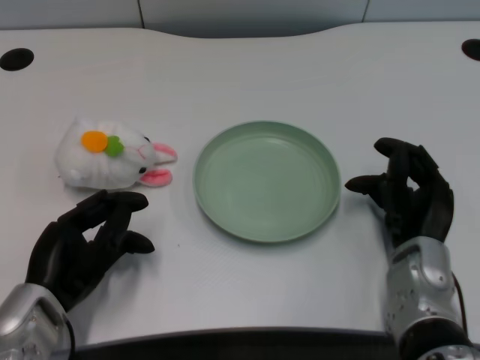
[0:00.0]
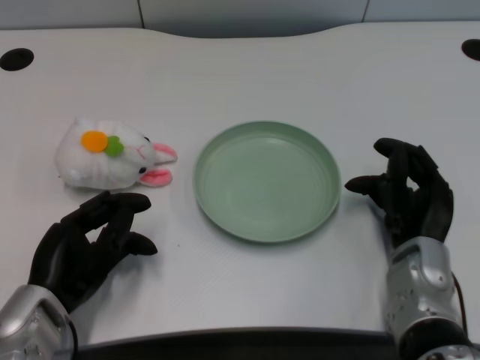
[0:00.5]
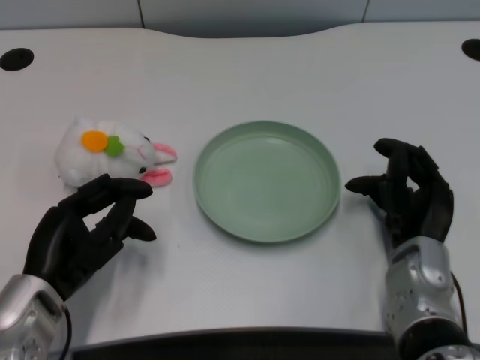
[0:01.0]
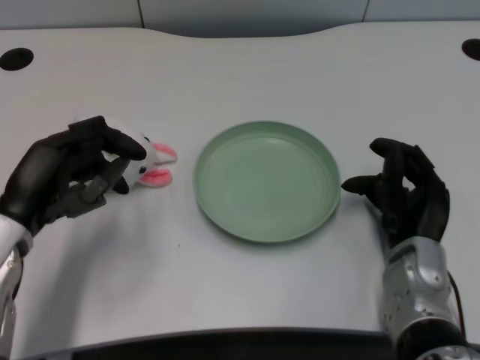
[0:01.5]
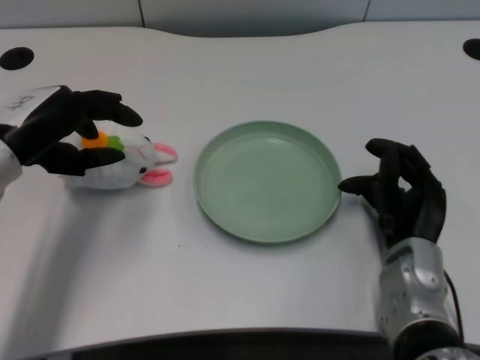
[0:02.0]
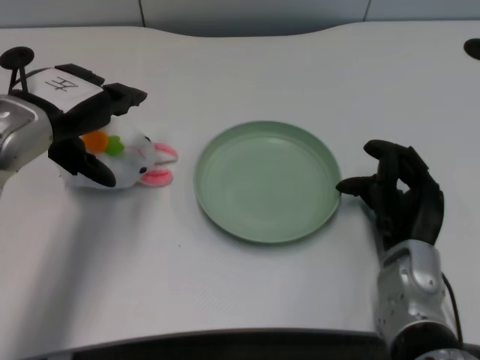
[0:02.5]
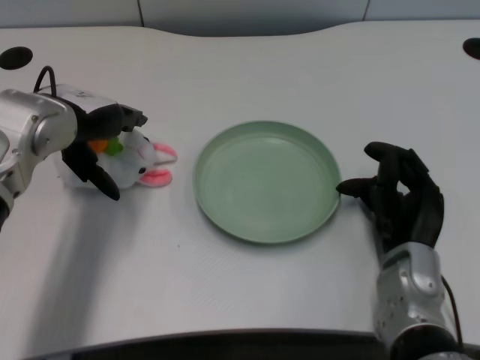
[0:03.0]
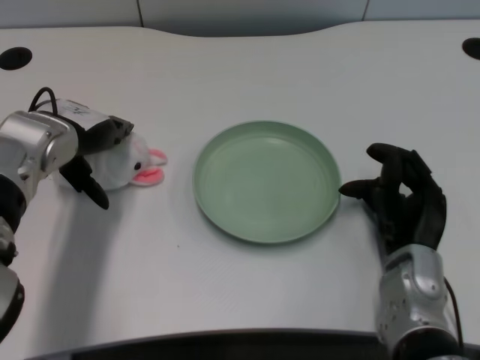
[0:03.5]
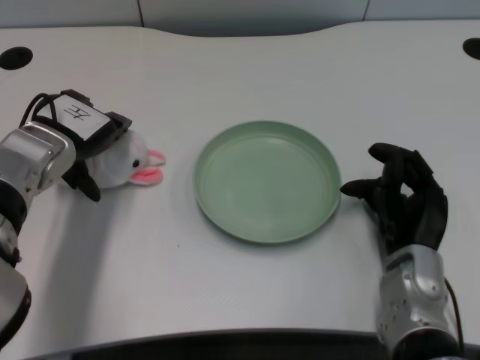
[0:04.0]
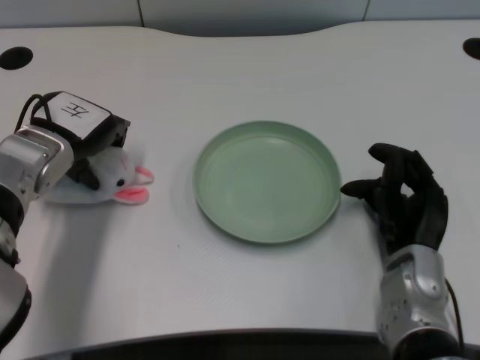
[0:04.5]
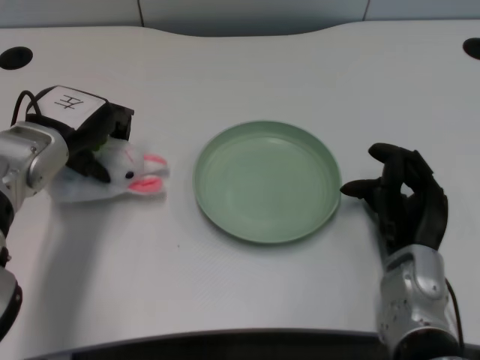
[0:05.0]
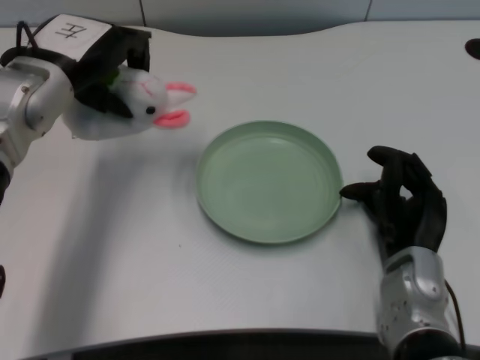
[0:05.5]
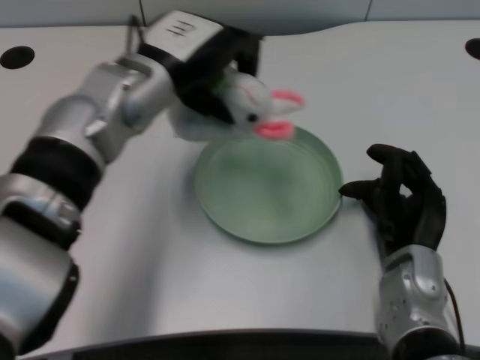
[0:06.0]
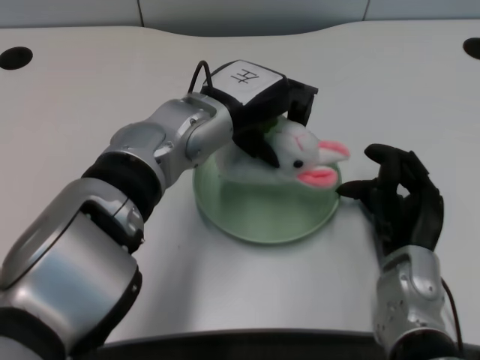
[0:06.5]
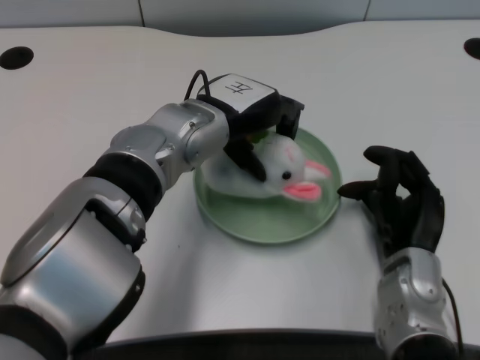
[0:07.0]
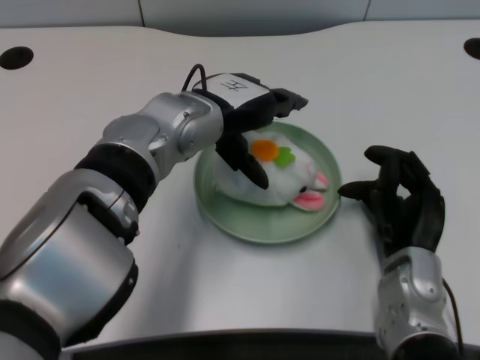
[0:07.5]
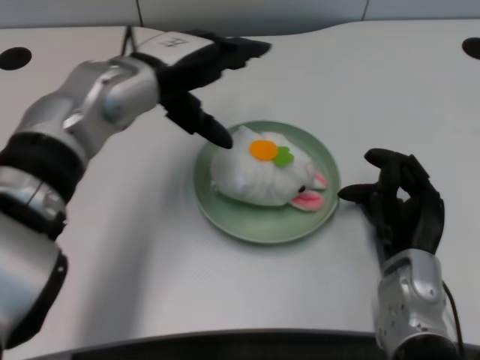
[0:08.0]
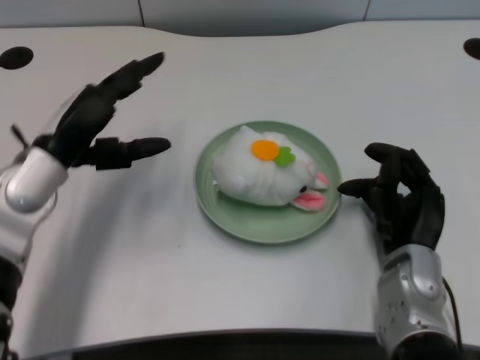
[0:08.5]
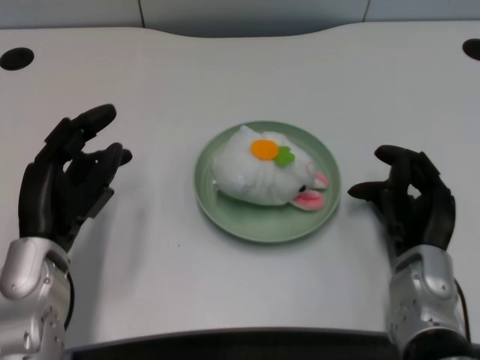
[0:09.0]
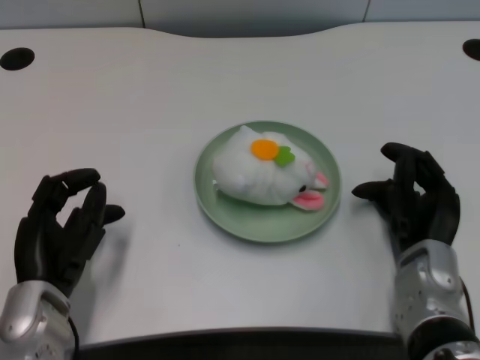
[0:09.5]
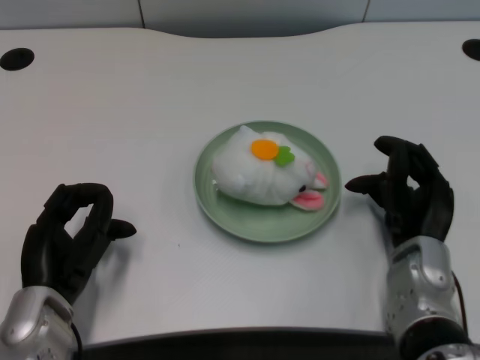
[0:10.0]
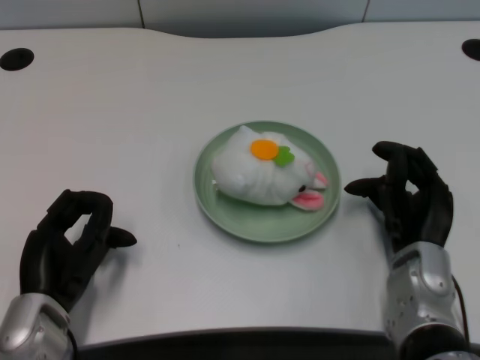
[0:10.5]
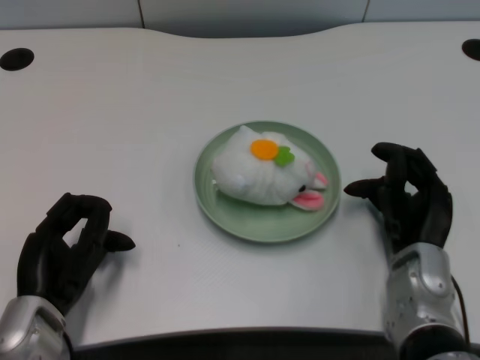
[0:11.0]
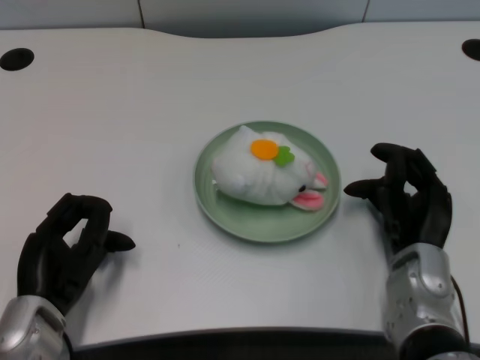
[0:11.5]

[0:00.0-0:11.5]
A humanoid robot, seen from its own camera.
Task of the whole recording: pick up the rabbit doll from the table and place it on the plate.
Step, 0:01.5 to 0:05.0: Grasp the rabbit doll with the left gripper.
Step, 0:05.5 to 0:07.0: Place the rabbit doll into the plate with the left gripper.
0:02.0 to 0:04.0: The left hand travels forward by approximately 5 cm.
0:04.0 to 0:06.0: The left hand moves to the right and upward, roughly 10 cm.
0:07.5 to 0:09.5: The left hand is displaced backward, to the left and downward by some 25 cm.
0:09.5 to 0:11.5: The hands move only a little.

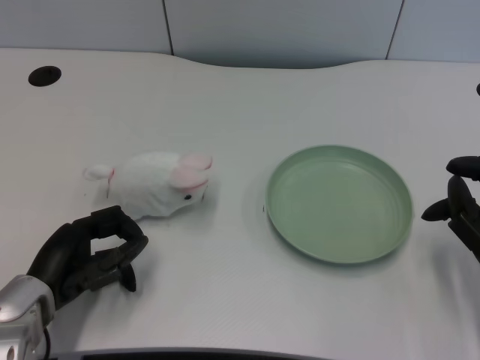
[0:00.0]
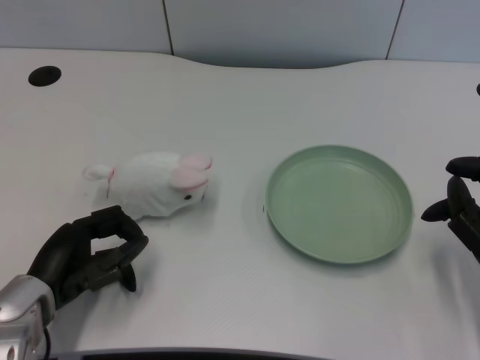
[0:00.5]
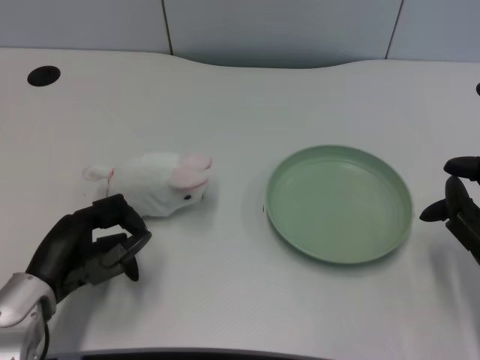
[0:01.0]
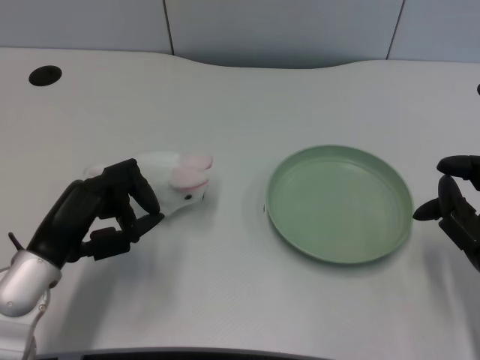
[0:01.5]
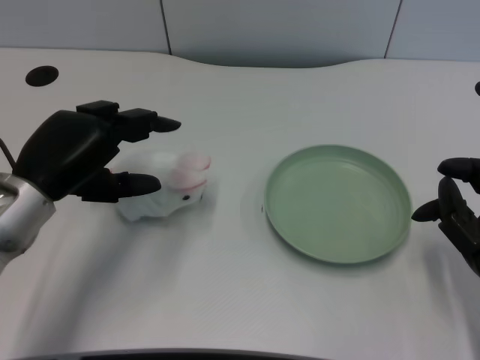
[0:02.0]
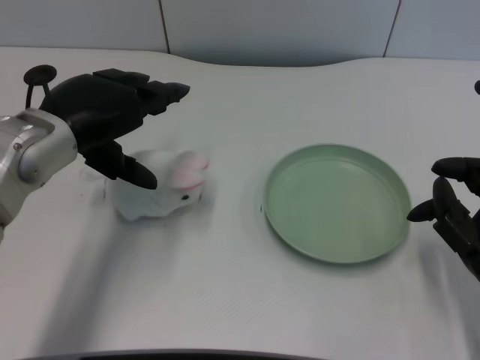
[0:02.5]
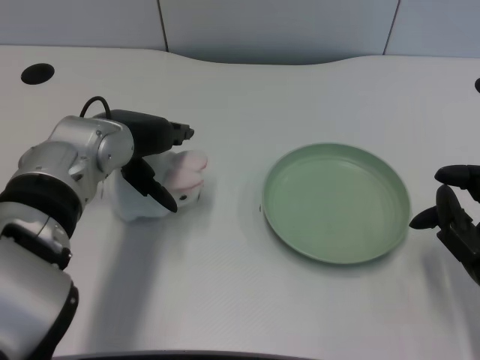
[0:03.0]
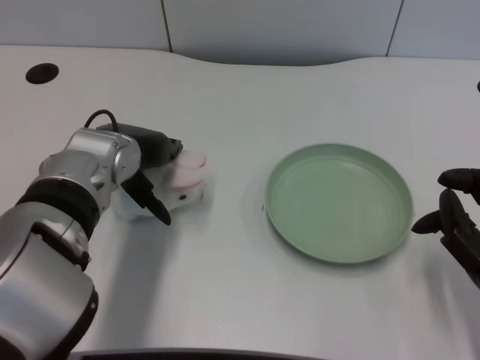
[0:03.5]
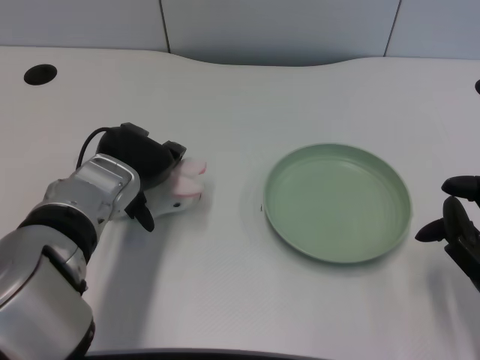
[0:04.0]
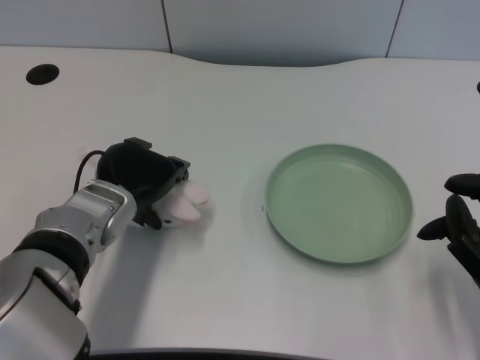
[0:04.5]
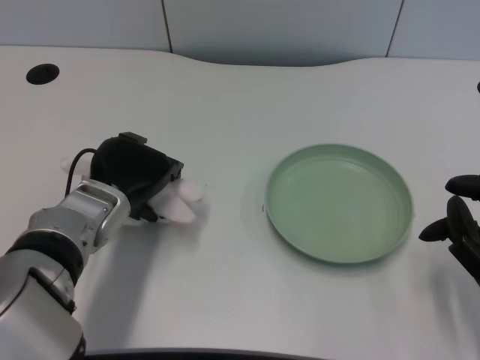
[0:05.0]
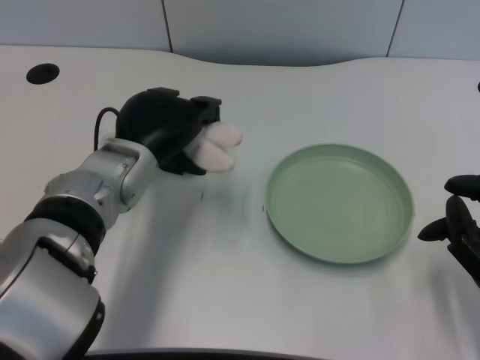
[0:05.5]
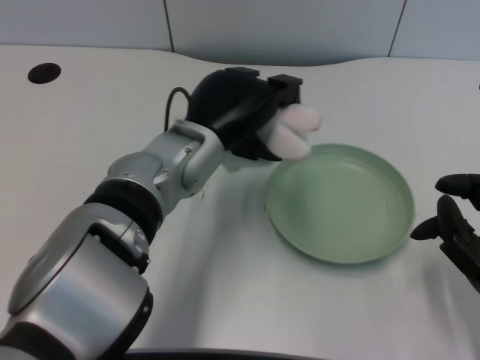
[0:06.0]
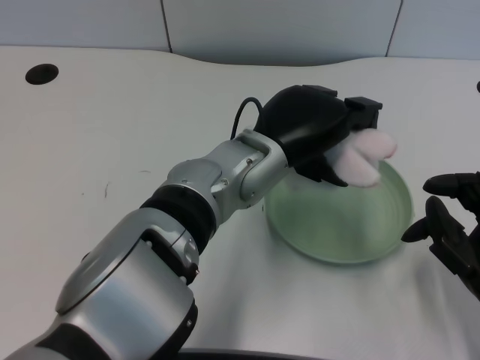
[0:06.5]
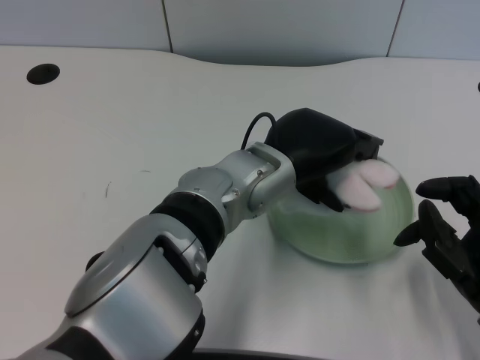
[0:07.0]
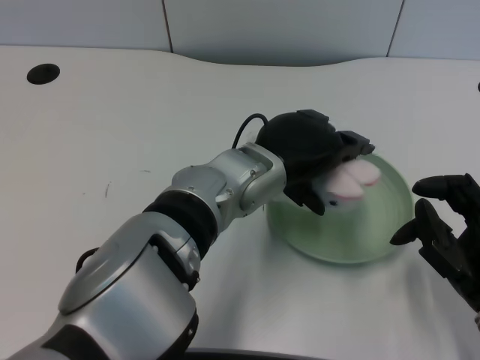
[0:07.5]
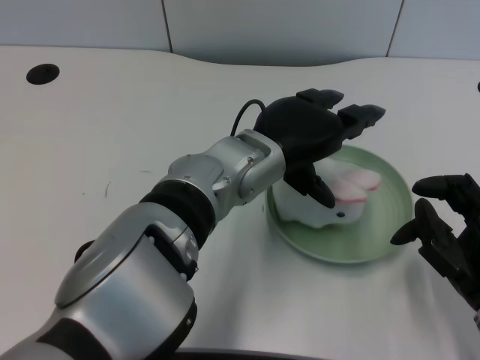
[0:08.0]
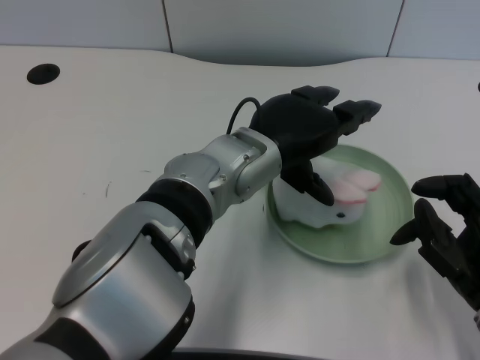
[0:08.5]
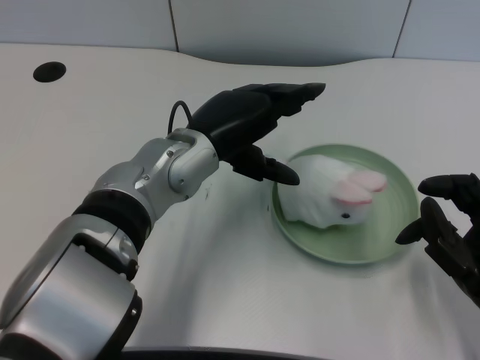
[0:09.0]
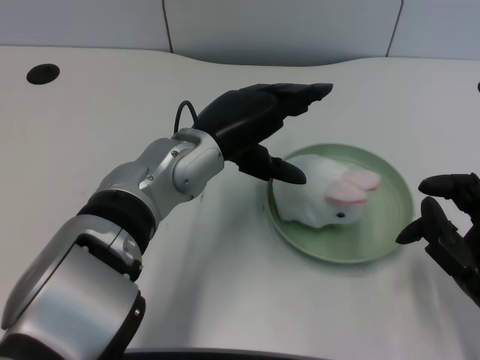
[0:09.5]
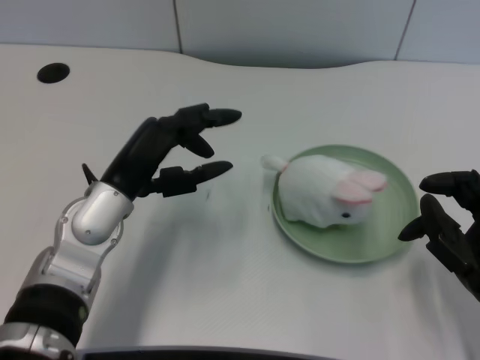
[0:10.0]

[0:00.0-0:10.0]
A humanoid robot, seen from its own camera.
Task of the whole recording: pick up the rabbit doll from the table and place it on the plate.
Step, 0:01.5 to 0:05.0: Grasp the rabbit doll with the left gripper.
Step, 0:05.5 to 0:07.5: Place the rabbit doll into the plate with the left gripper.
0:02.0 to 0:04.0: The left hand moves to the right, some 10 cm.
0:04.0 to 0:06.0: The left hand travels to the right by some 10 cm.
0:06.0 to 0:08.0: The left hand goes some 5 cm to the right.
0:08.0 to 0:10.0: The left hand is displaced to the left by about 15 cm.

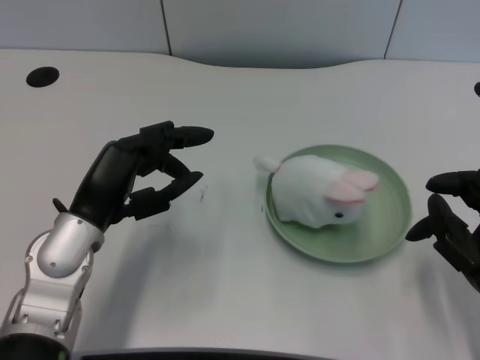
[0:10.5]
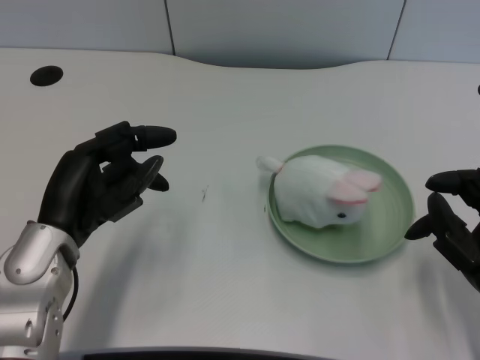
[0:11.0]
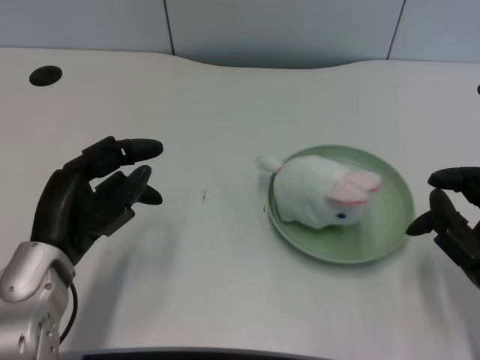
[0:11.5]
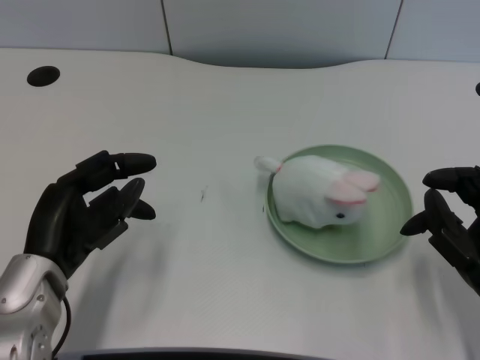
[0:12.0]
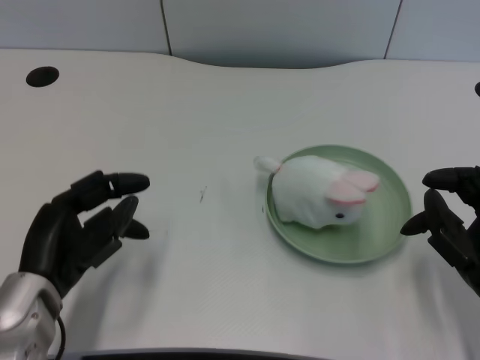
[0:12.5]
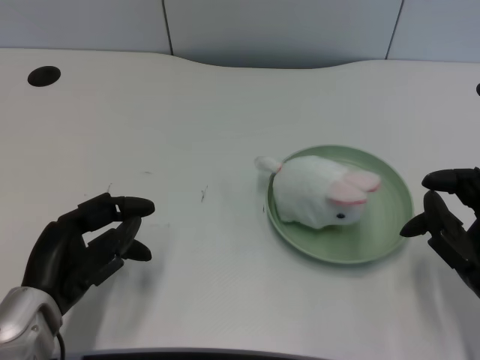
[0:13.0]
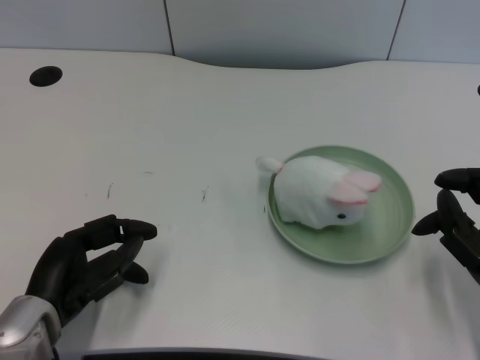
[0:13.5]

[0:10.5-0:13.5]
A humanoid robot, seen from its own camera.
Task of the whole recording: pick up the rabbit doll from the table and place it on the plate.
0:10.5 to 0:12.0: The left hand shifts by approximately 5 cm.
0:12.0 to 0:13.5: There are only small adjustments of the hands.

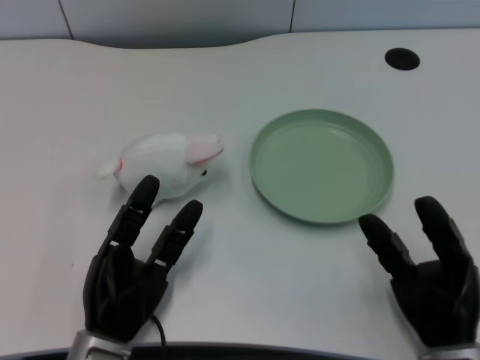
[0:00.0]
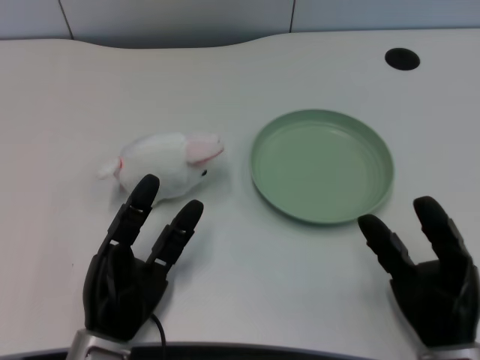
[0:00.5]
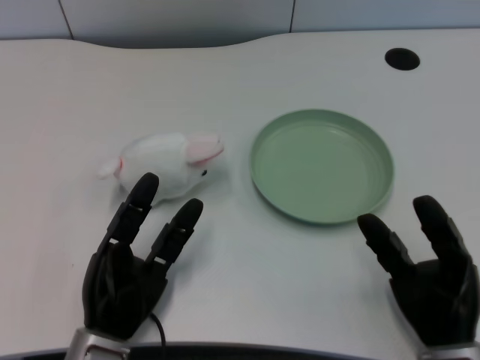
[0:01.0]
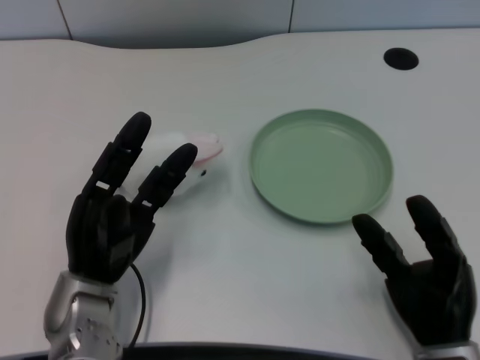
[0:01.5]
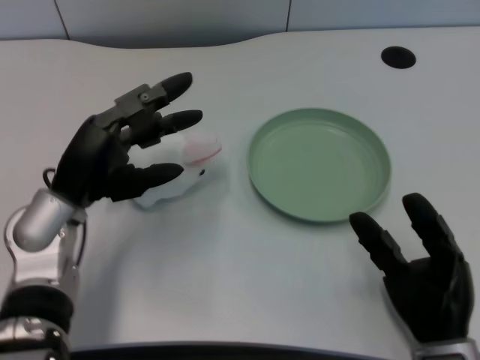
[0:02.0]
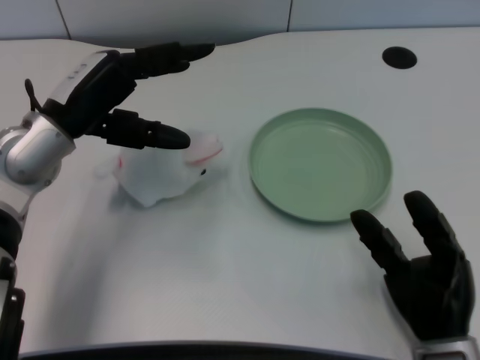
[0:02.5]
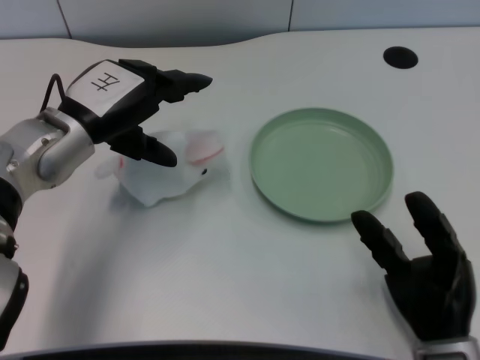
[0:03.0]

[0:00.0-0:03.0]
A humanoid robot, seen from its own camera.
Task of the whole recording: pick up the rabbit doll from the table and place it on the plate.
0:01.5 to 0:03.0: The left hand shifts some 15 cm upward and forward.
